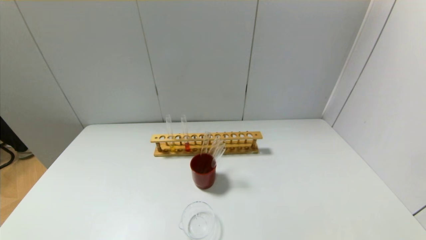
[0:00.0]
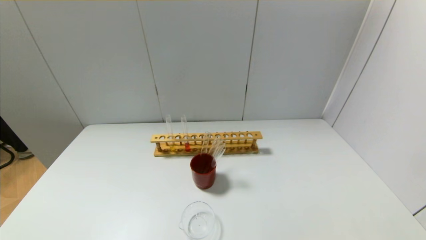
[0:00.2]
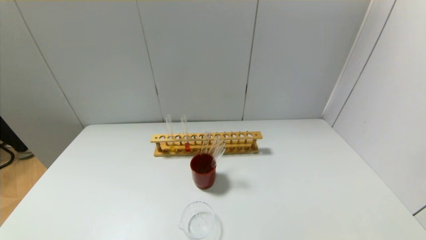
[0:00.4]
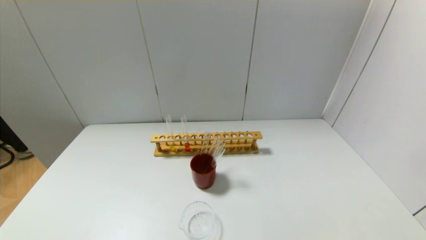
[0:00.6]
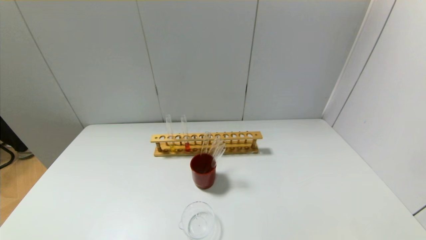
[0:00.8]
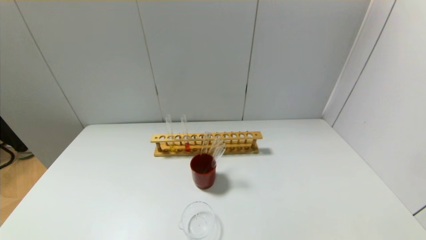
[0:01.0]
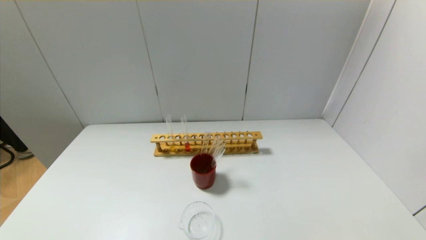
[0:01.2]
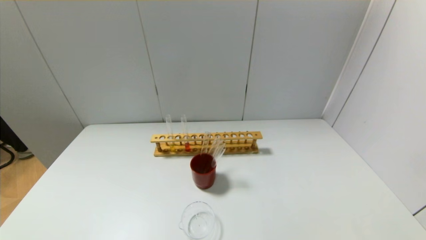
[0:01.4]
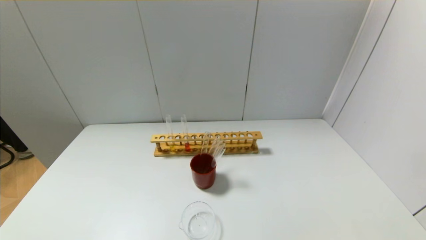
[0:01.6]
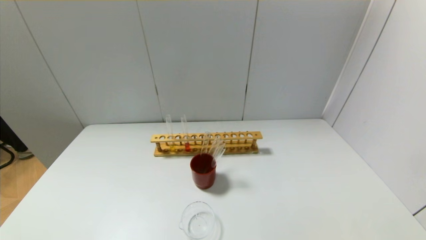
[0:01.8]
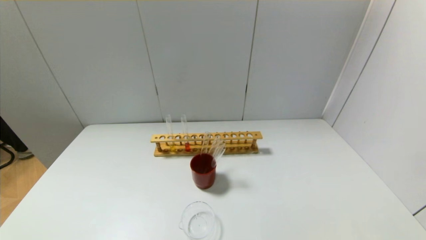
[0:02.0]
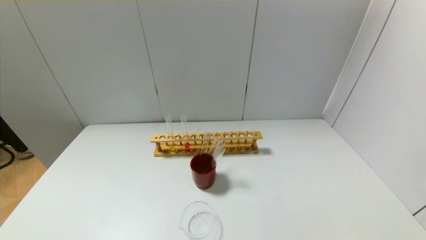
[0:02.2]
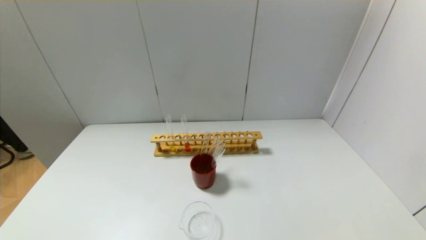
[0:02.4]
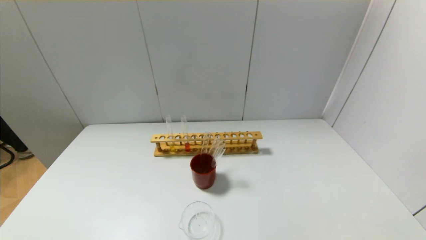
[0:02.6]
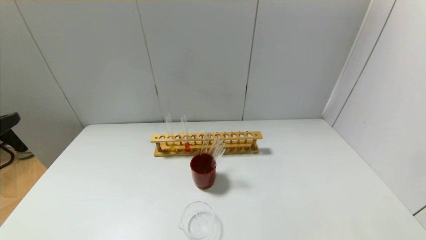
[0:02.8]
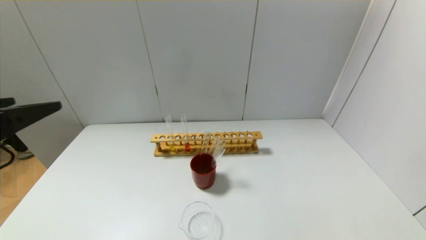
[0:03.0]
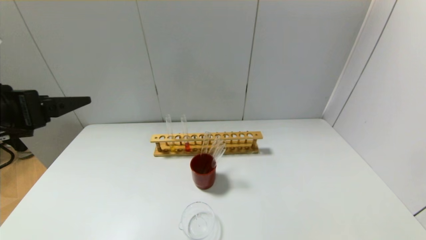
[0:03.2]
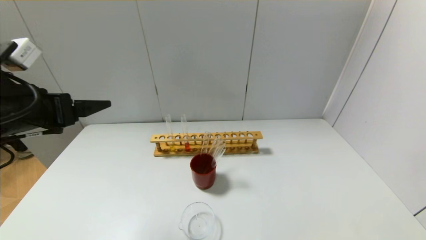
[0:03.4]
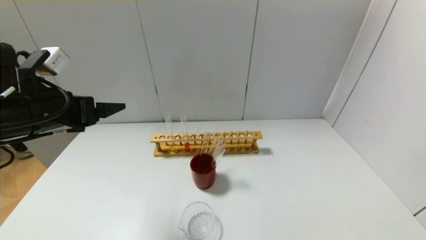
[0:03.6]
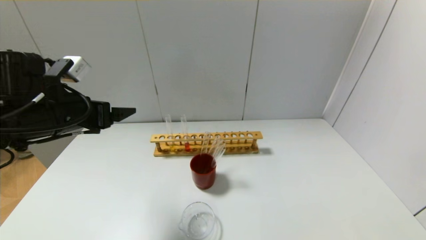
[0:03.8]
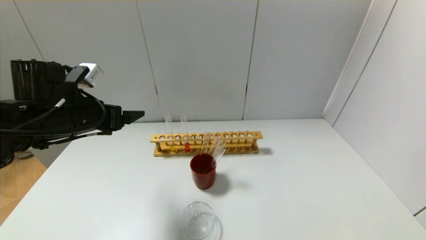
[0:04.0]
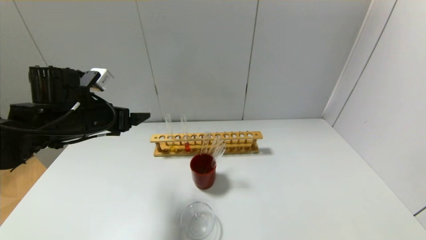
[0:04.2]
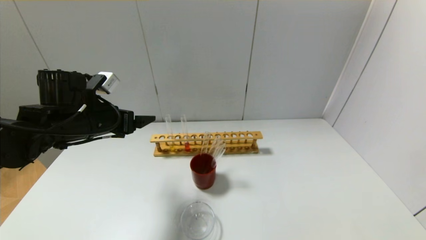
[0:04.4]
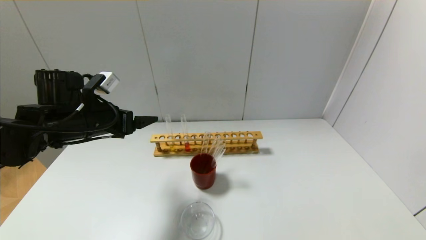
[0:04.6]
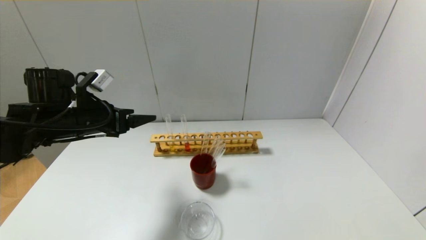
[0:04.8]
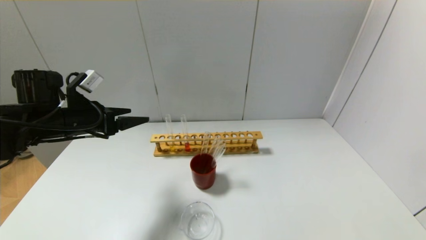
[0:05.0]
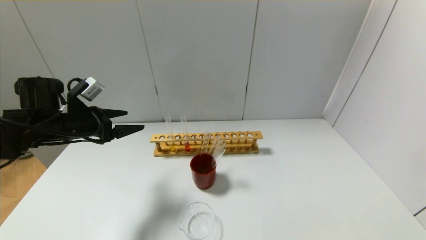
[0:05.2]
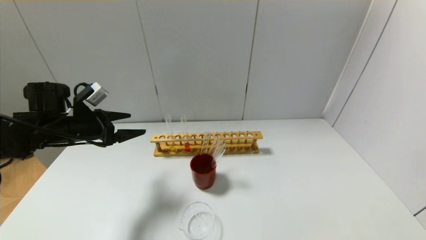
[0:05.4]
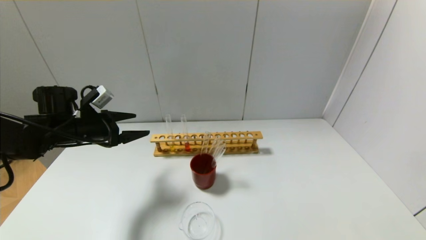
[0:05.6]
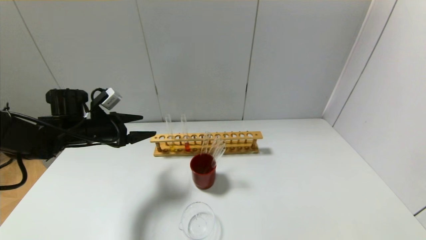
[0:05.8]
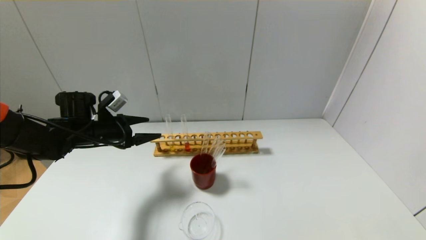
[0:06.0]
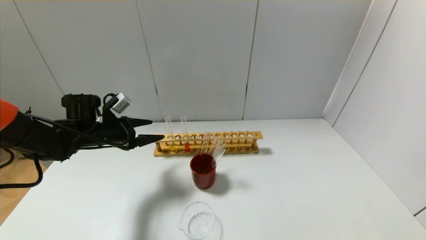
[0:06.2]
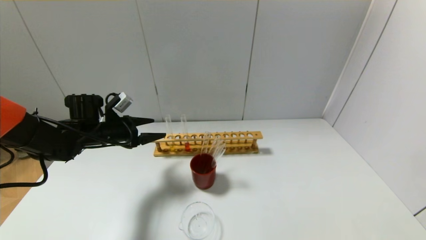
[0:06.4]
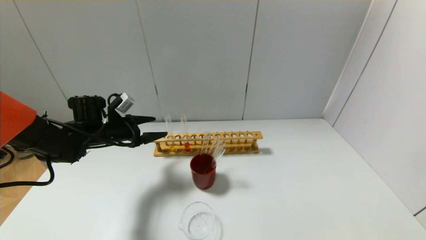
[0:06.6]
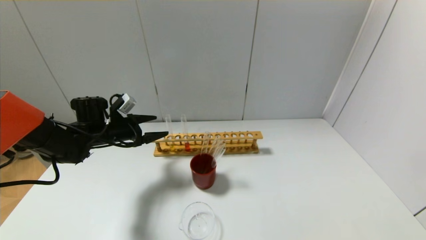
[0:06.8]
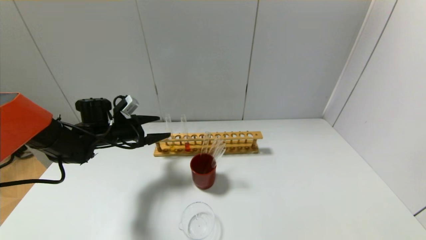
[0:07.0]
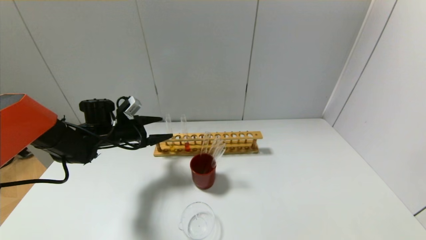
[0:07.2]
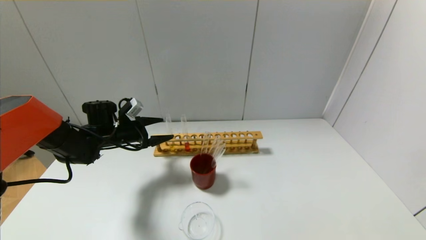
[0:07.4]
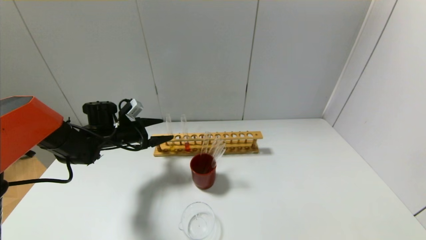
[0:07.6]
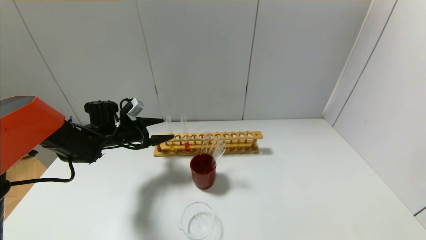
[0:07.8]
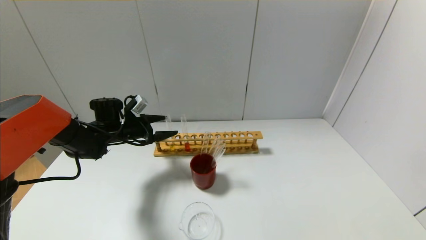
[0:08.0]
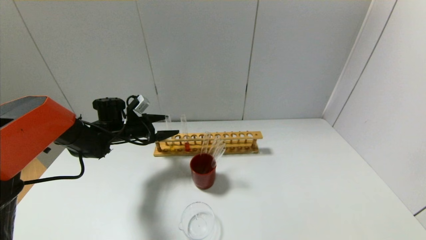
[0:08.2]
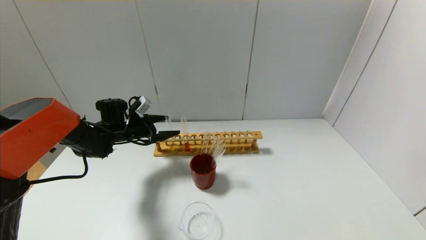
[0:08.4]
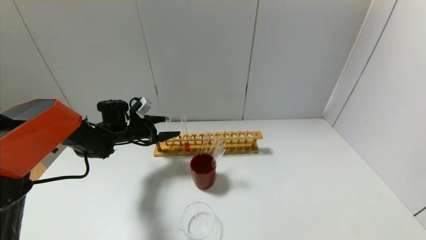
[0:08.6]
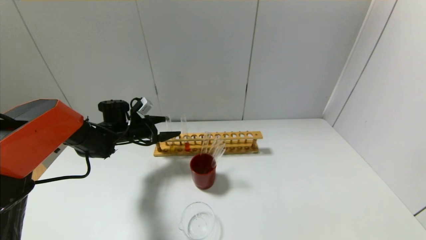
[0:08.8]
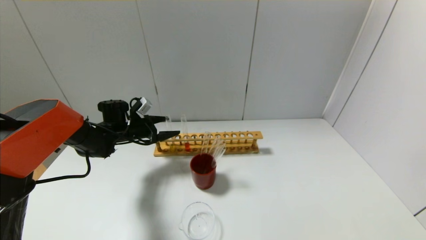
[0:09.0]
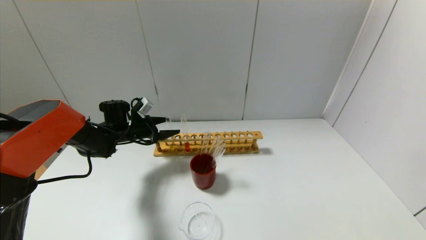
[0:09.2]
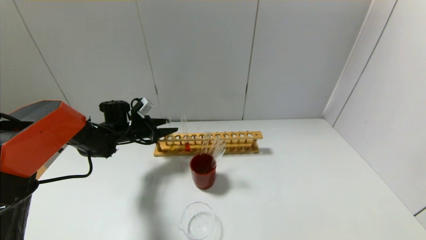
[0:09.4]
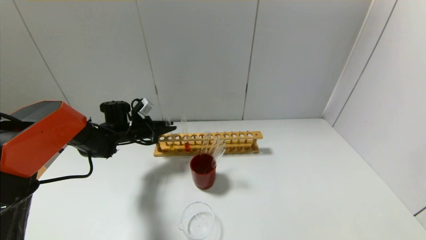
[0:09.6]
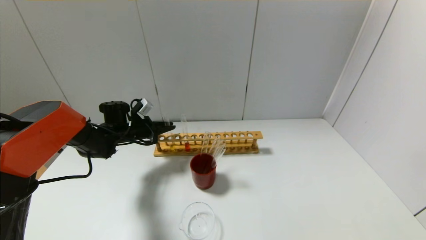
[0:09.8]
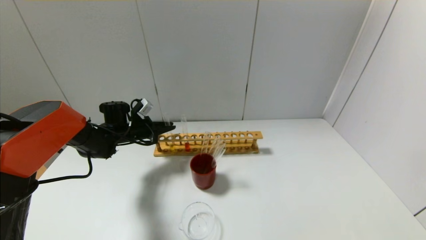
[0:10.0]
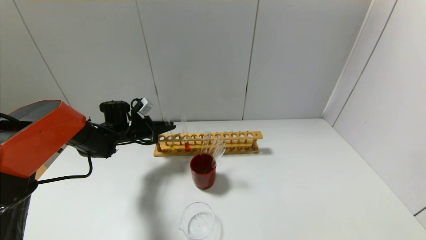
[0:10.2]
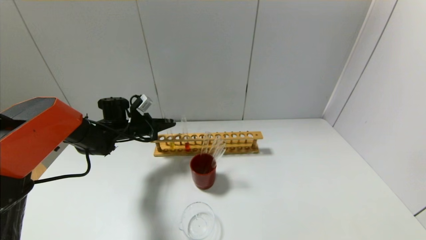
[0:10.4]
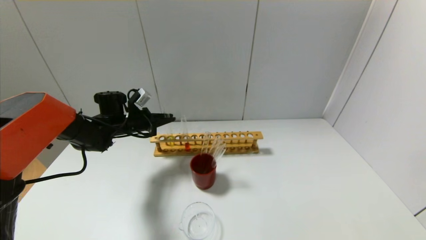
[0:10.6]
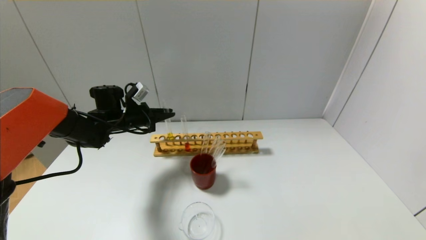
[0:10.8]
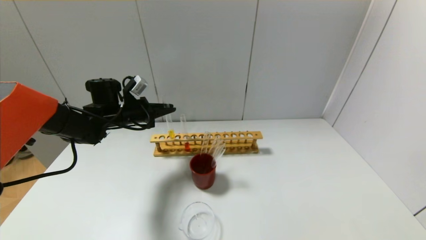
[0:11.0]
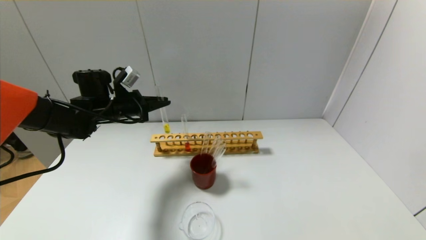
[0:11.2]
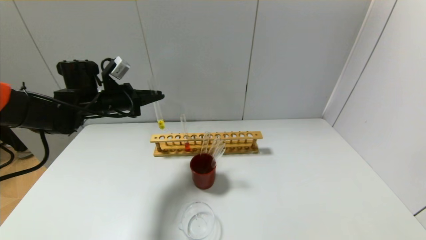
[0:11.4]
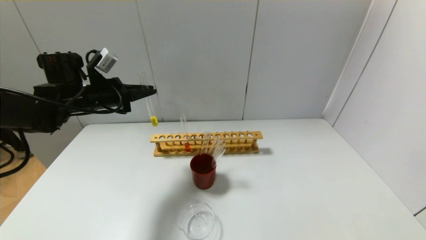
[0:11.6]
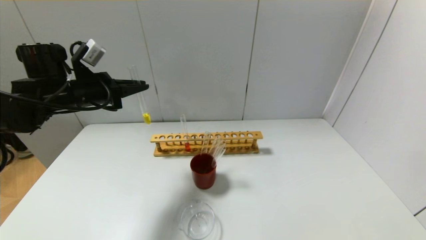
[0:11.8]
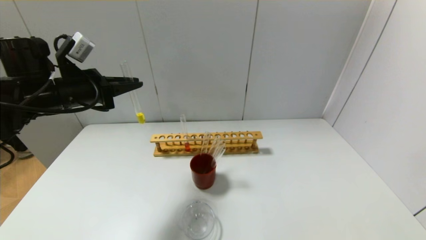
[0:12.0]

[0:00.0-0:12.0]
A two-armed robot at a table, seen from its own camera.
Step, 0:00.0 to 0:10.0: Grasp the yellow reagent with the left gripper.
0:01.6 to 0:03.0: The left gripper moves upward and forward, roughly 25 cm.
0:03.0 to 0:04.4: The left gripper is displaced forward and downward by approximately 20 cm.
0:04.4 to 0:06.0: The left gripper travels downward and forward by about 10 cm.
0:06.0 to 0:07.6: The left gripper moves about 5 cm.
0:07.6 to 0:09.0: The grippers move only a little.
0:09.0 to 0:10.4: The left gripper closes its fingers.
0:10.4 to 0:12.0: The left gripper moves upward and backward, some 20 cm.

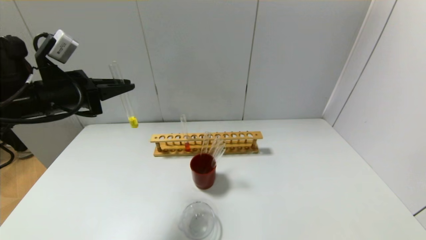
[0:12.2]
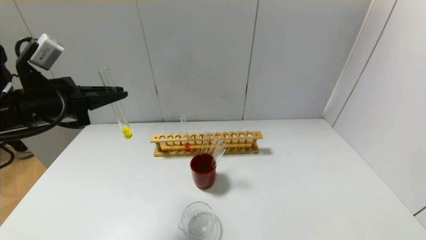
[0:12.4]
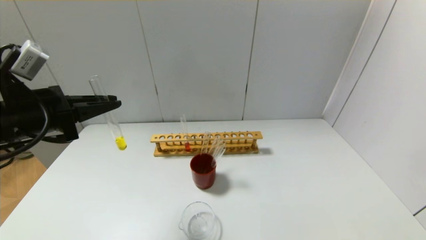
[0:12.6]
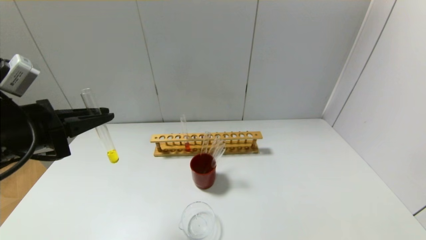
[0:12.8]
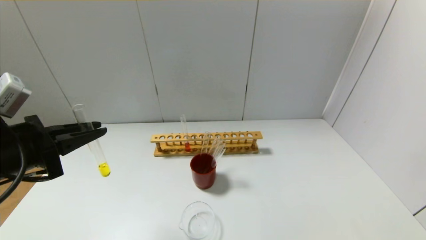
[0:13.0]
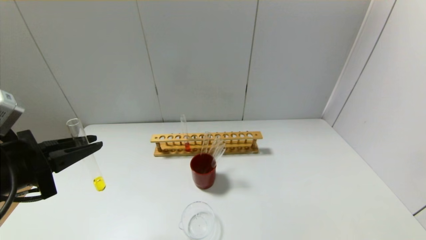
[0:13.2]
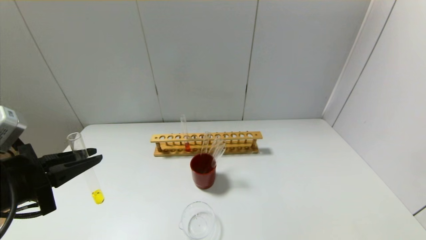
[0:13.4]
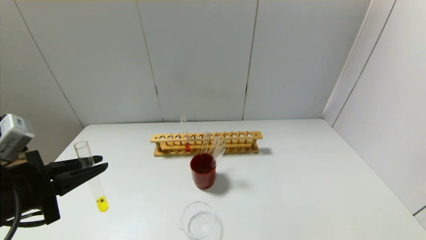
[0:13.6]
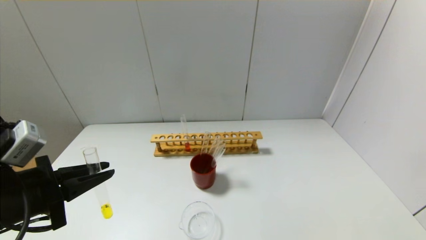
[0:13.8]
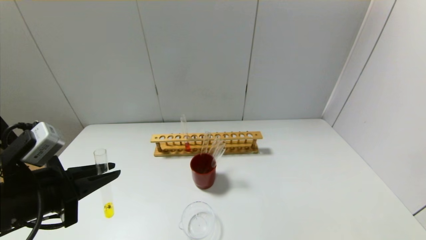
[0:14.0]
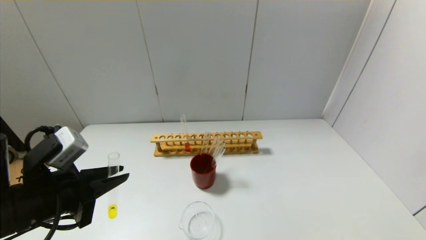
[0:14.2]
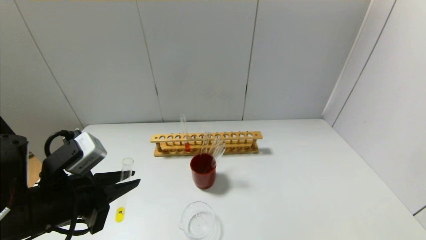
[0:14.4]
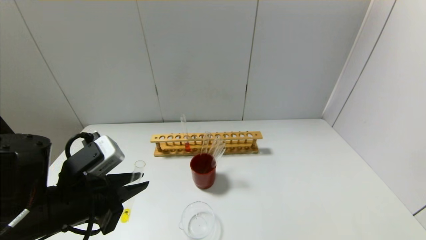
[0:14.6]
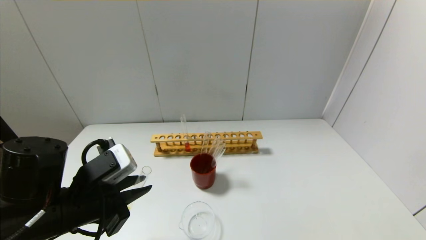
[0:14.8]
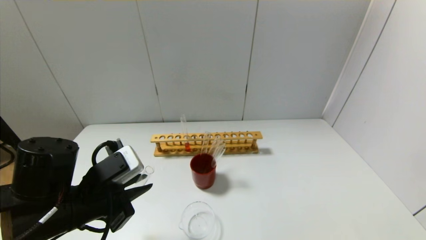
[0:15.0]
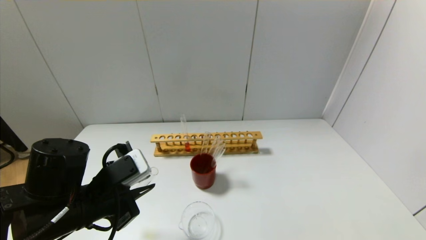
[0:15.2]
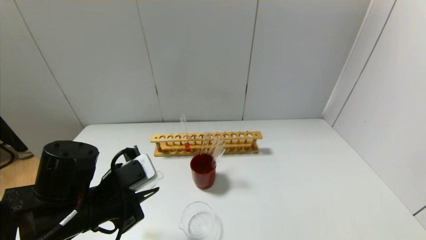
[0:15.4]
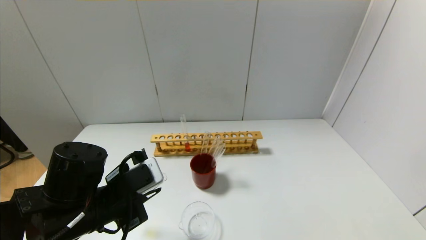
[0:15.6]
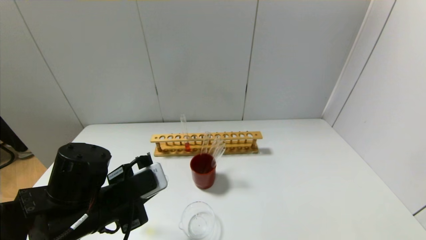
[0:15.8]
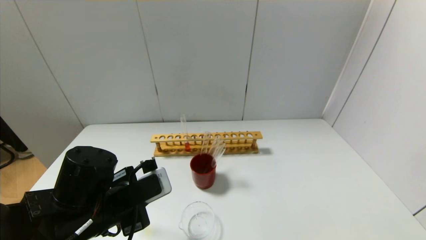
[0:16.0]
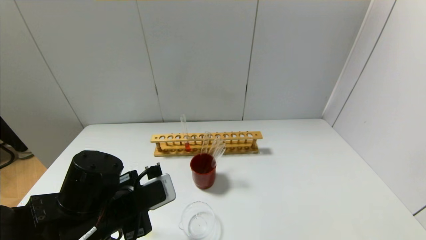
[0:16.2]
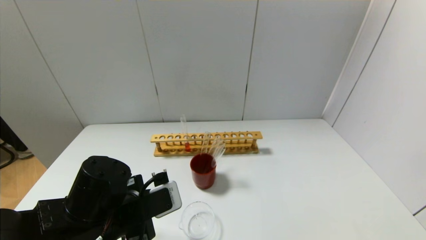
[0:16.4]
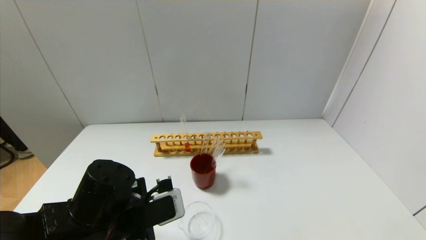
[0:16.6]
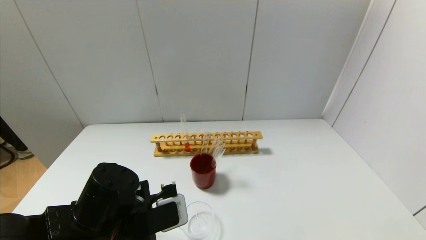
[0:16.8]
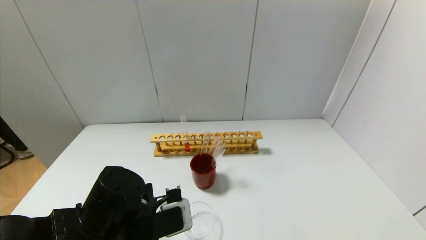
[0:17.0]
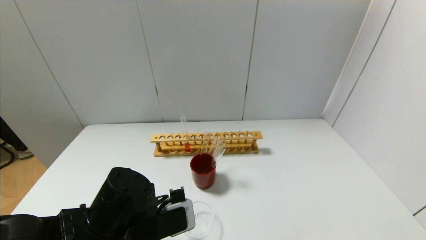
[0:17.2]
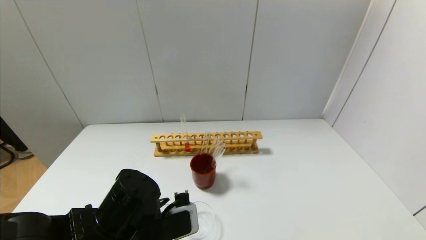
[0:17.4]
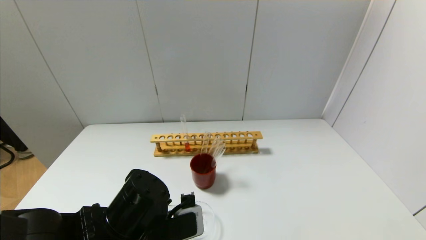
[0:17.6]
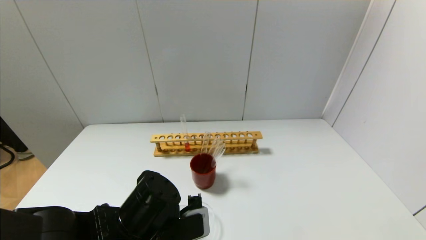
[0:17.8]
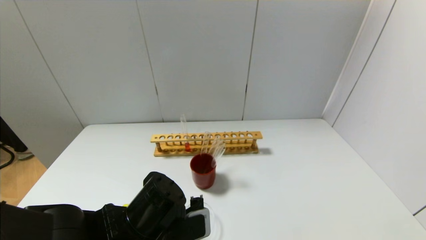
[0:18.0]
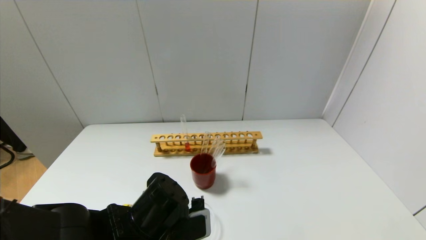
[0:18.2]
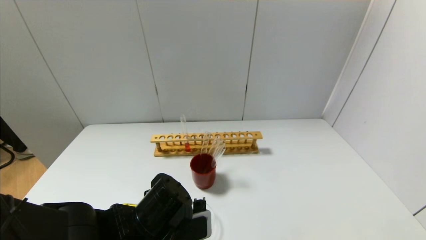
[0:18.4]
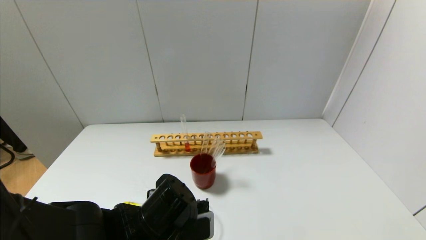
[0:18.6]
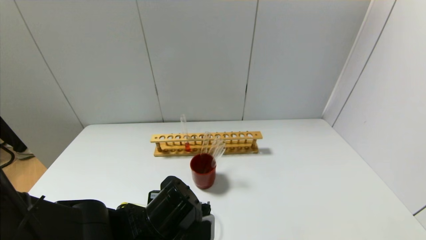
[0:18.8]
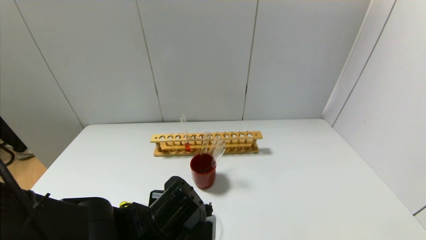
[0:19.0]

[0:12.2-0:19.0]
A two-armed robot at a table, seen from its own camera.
0:12.2 to 0:13.6: The left gripper heads backward and downward, covering roughly 15 cm.
0:13.6 to 0:15.0: The left gripper travels to the right by some 10 cm.
0:15.0 to 0:16.2: The grippers move only a little.
0:16.2 to 0:17.6: The grippers make only small movements.
0:17.6 to 0:19.0: The grippers move only a little.
